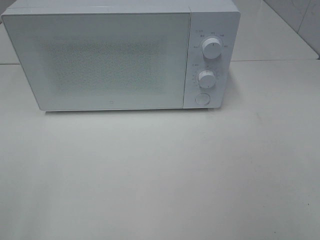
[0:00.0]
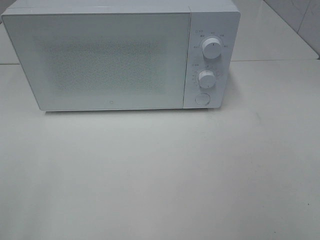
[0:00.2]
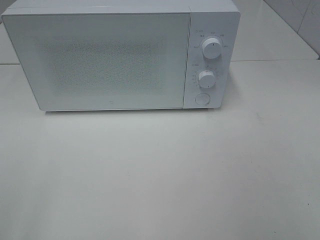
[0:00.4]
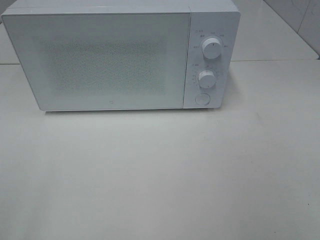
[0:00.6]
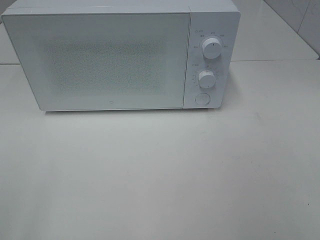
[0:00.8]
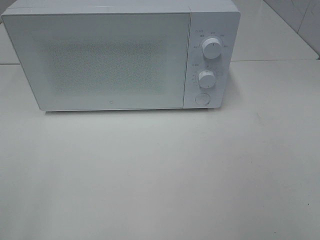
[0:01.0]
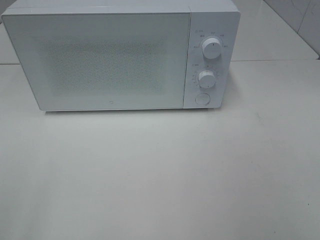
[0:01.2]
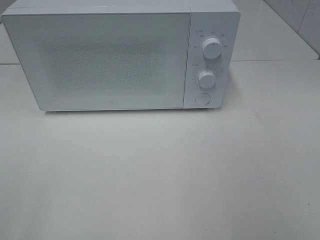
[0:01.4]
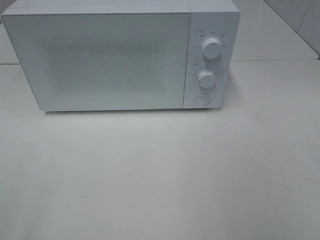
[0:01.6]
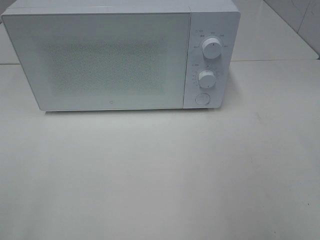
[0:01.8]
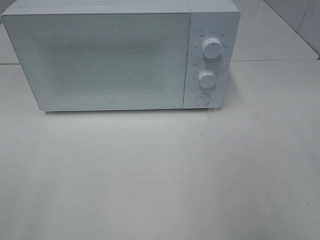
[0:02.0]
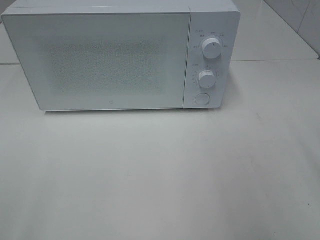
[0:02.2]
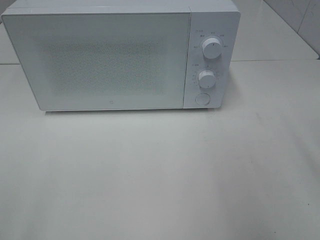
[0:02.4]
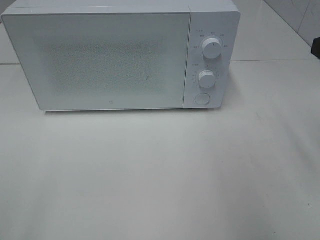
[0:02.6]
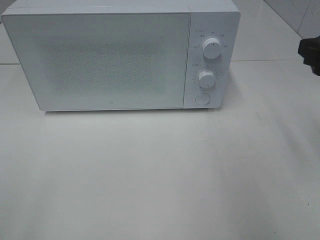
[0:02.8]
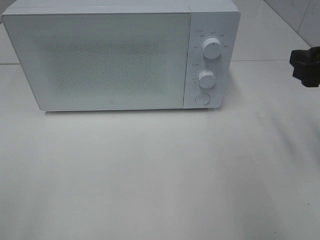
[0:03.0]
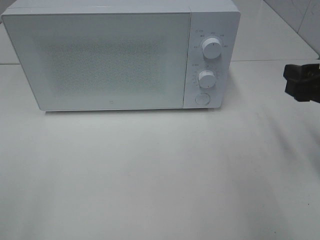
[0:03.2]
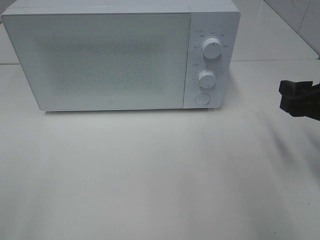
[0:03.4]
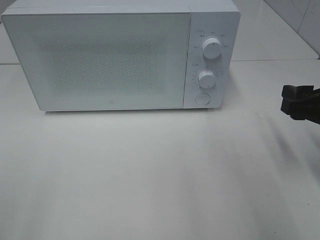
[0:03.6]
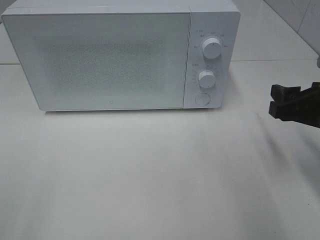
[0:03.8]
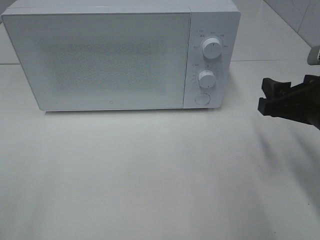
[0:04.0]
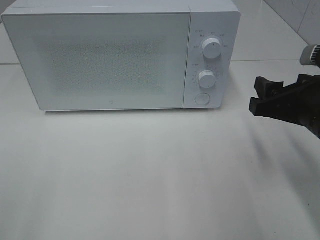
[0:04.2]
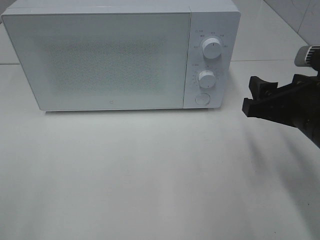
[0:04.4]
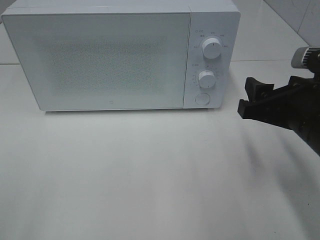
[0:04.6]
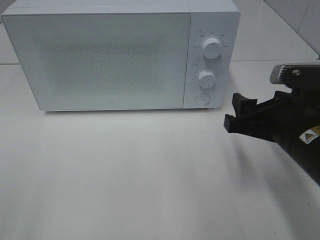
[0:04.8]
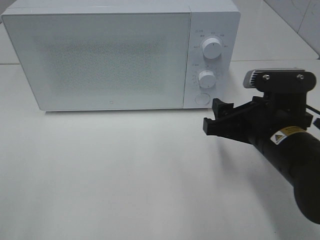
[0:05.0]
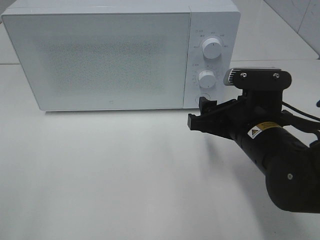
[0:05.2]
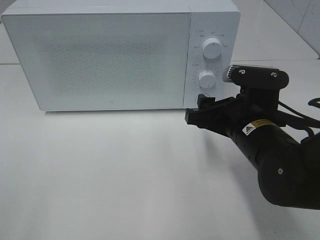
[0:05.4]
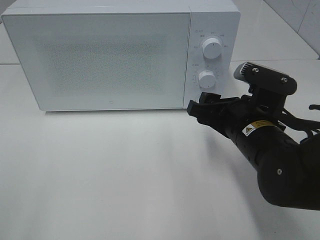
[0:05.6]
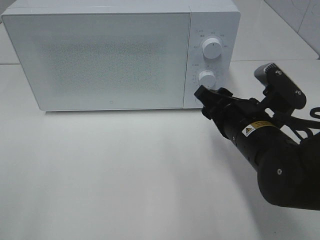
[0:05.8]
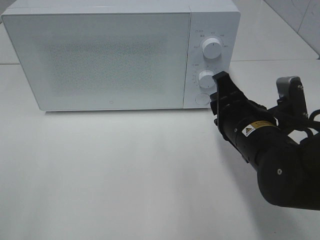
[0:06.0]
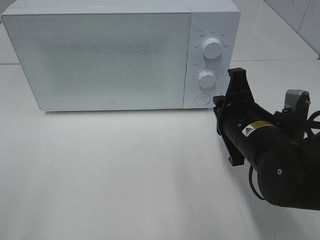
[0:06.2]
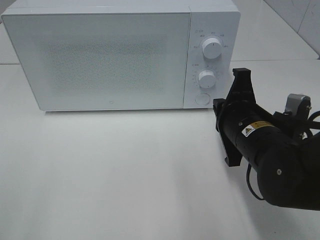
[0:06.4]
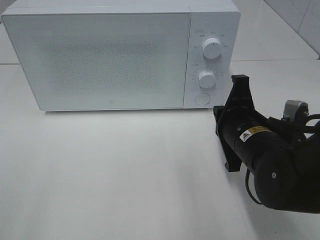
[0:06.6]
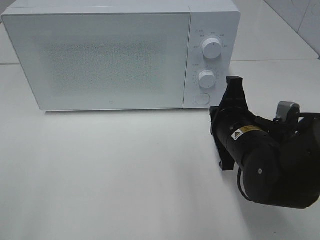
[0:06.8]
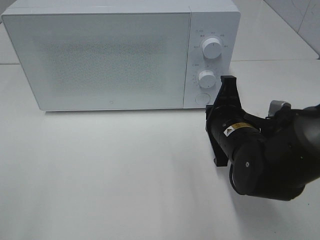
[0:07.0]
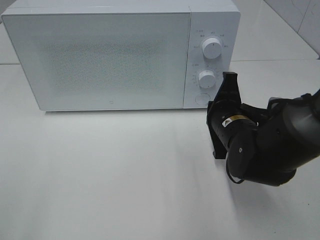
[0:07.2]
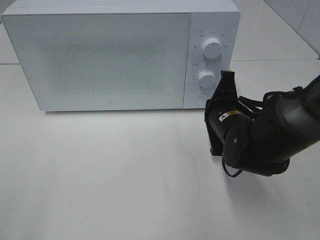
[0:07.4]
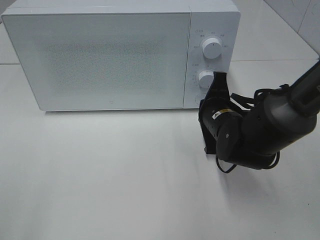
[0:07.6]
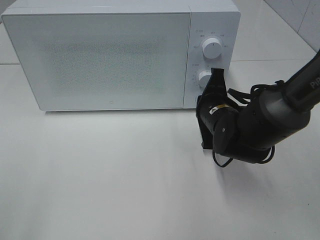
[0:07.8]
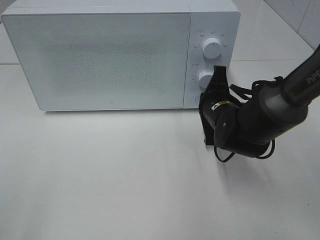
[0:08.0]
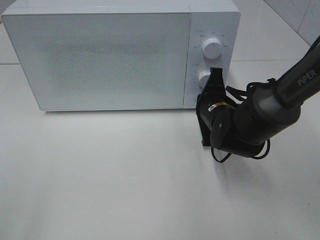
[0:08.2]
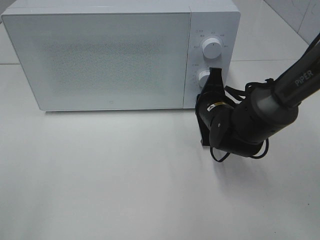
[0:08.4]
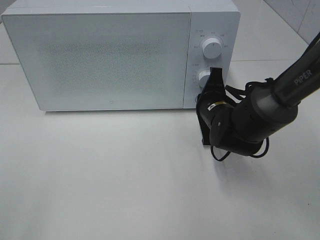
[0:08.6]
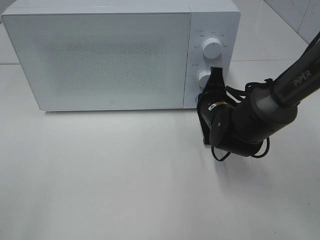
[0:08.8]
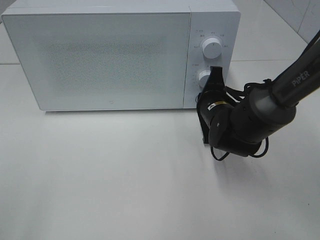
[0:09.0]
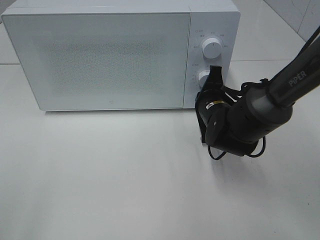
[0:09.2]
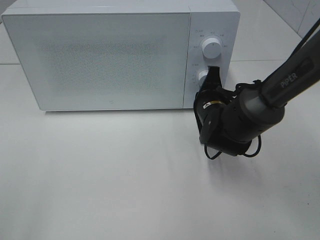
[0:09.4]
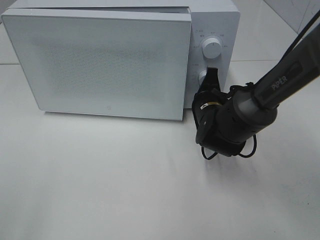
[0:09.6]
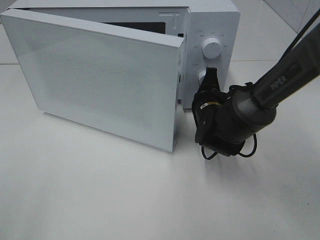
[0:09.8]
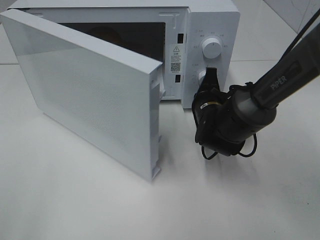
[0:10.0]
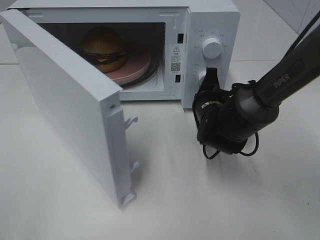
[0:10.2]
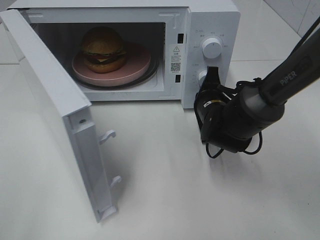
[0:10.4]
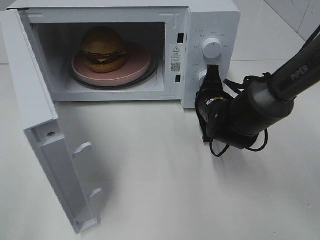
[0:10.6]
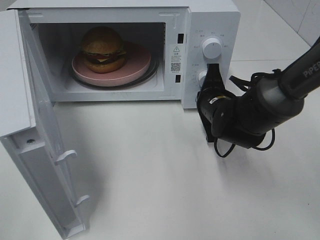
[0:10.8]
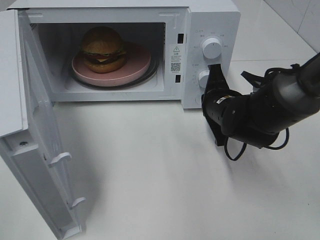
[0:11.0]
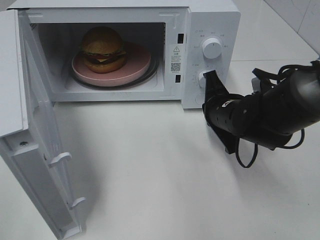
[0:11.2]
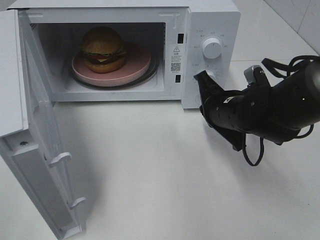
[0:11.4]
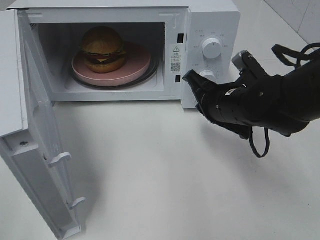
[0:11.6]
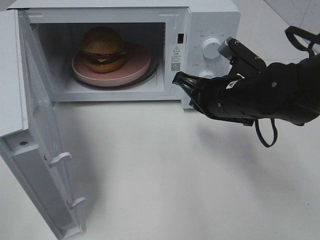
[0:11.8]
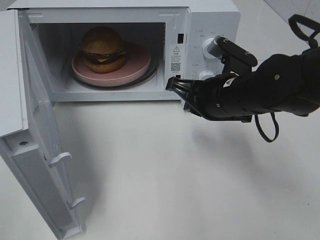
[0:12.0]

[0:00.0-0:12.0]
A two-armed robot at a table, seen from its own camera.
Task of the whole recording: Heat the burger.
Step, 0:00.0 to 0:11.0: Right hand: press the switch.
0:01.6 to 0:03.0: The right gripper moves forward and downward, roughly 20 cm.
0:03.0 to 0:04.4: The right gripper goes approximately 5 cm to the left.
0:04.4 to 0:06.0: The right gripper heads to the left and downward, covering approximately 10 cm, and closes its fingers.
0:06.0 to 0:07.6: The right gripper is displaced forward by roughly 5 cm, and closes.
0:07.6 to 0:09.0: The grippers move only a little.
0:10.4 to 0:12.0: The right gripper heads upward and backward, covering roughly 10 cm.

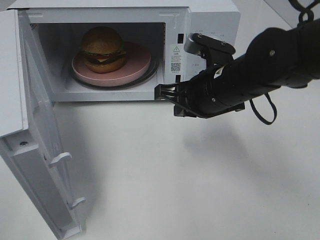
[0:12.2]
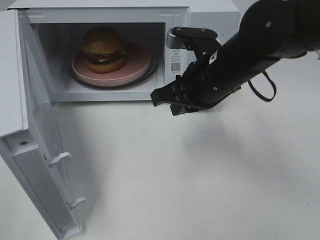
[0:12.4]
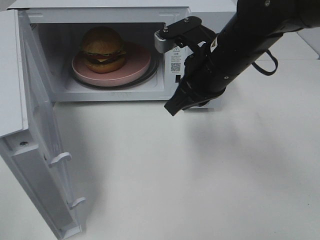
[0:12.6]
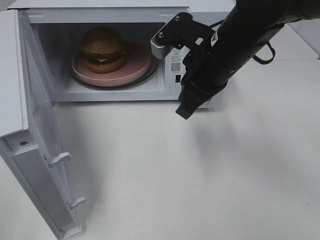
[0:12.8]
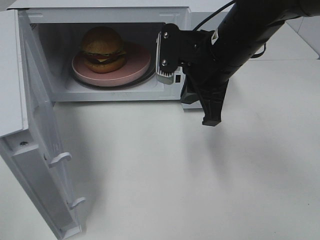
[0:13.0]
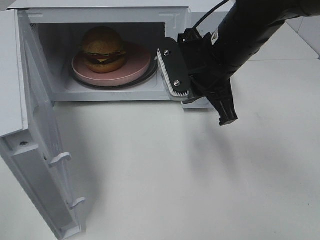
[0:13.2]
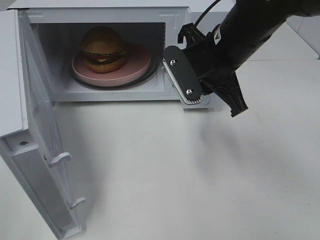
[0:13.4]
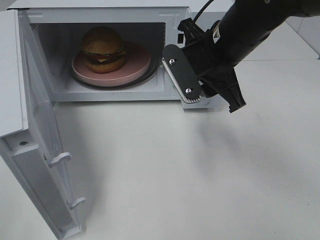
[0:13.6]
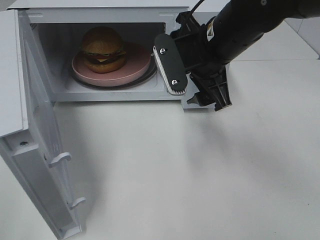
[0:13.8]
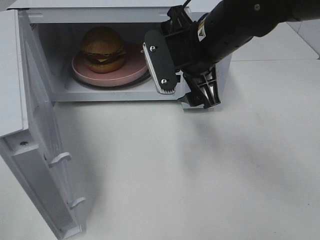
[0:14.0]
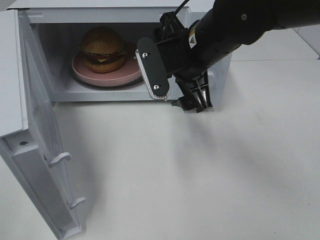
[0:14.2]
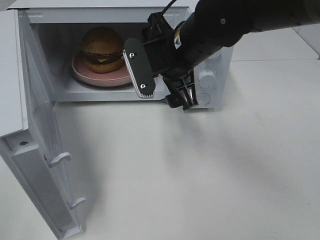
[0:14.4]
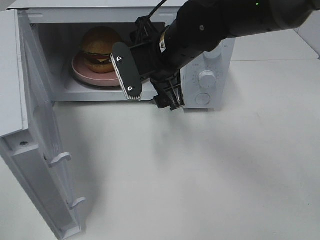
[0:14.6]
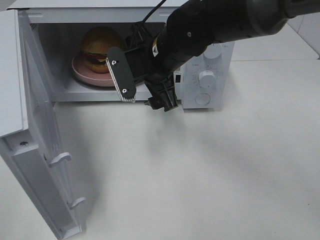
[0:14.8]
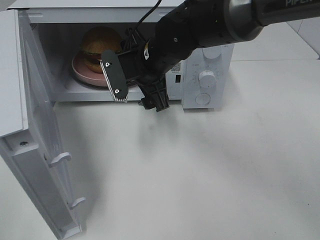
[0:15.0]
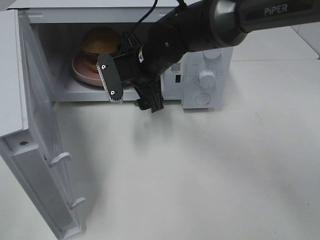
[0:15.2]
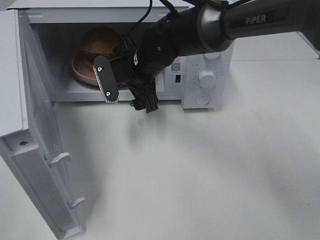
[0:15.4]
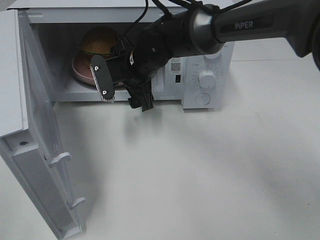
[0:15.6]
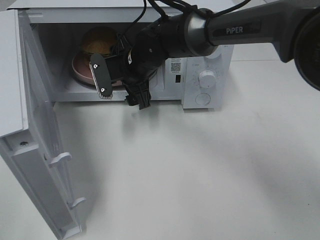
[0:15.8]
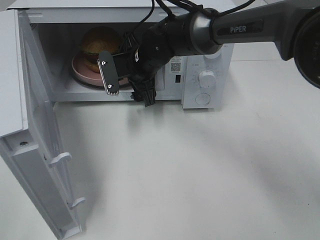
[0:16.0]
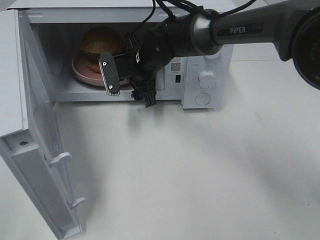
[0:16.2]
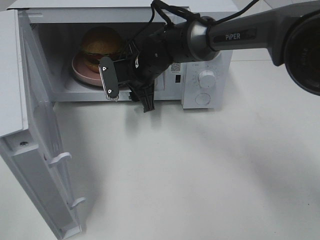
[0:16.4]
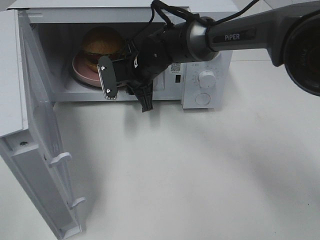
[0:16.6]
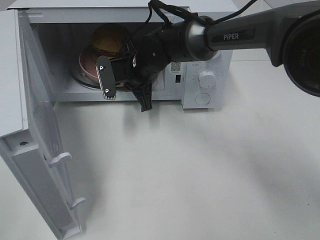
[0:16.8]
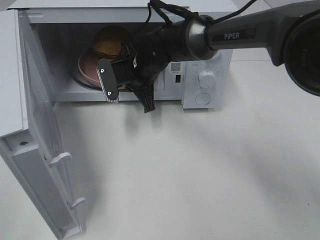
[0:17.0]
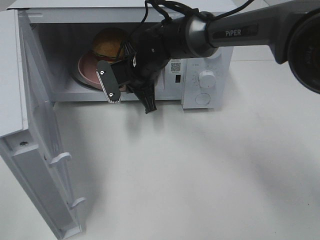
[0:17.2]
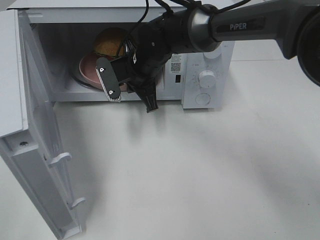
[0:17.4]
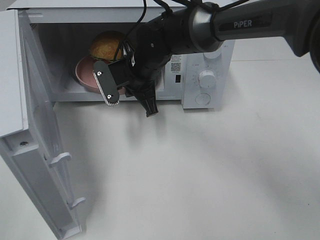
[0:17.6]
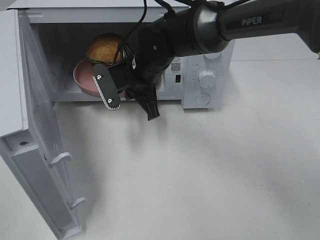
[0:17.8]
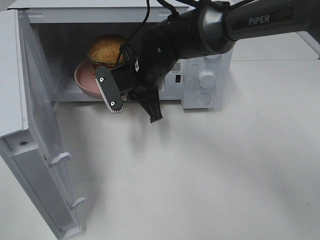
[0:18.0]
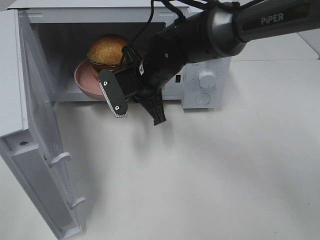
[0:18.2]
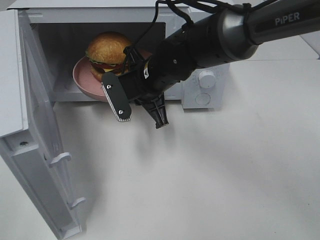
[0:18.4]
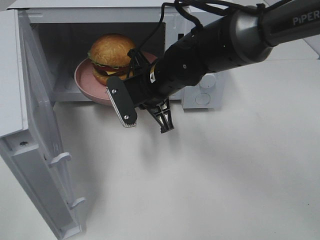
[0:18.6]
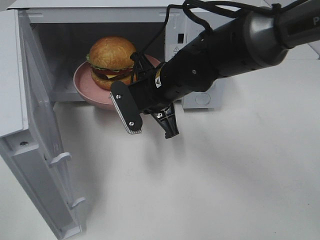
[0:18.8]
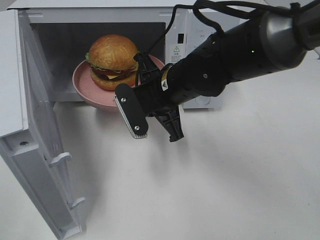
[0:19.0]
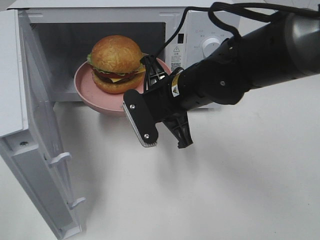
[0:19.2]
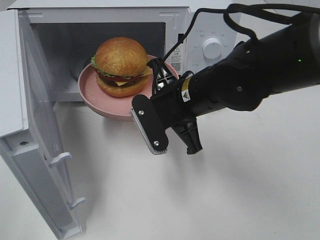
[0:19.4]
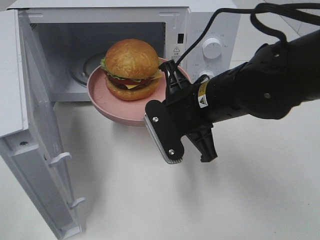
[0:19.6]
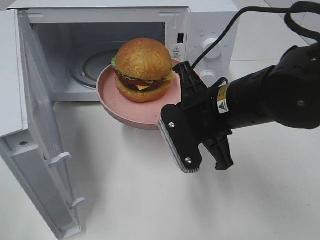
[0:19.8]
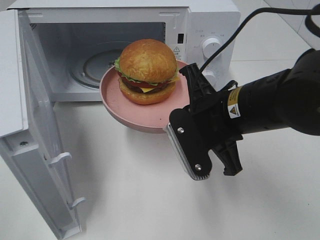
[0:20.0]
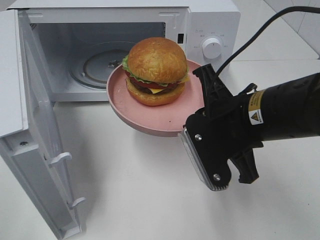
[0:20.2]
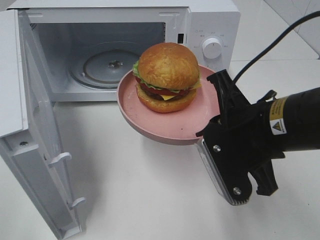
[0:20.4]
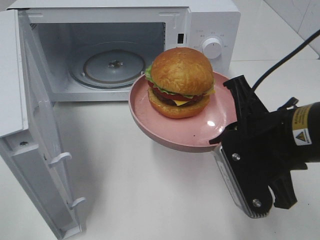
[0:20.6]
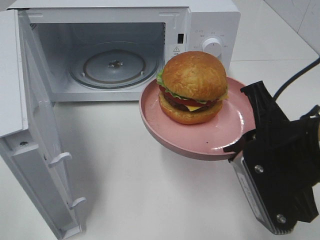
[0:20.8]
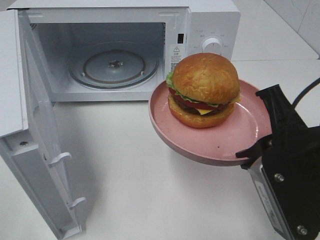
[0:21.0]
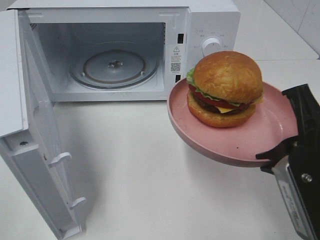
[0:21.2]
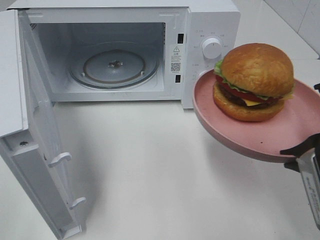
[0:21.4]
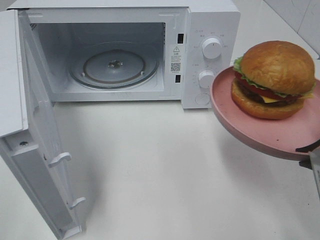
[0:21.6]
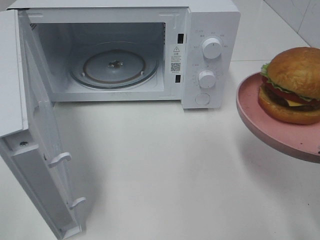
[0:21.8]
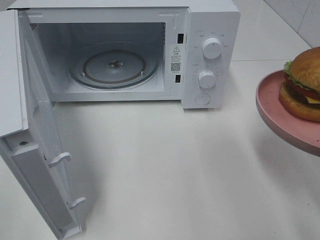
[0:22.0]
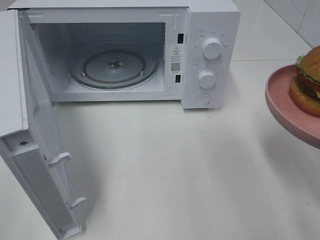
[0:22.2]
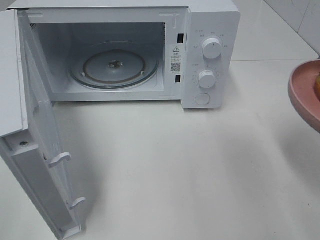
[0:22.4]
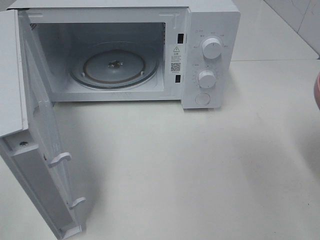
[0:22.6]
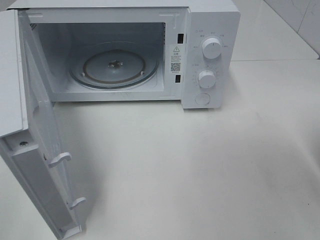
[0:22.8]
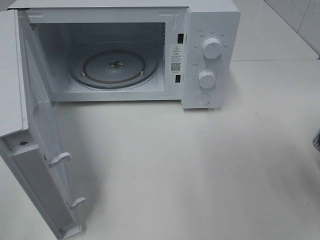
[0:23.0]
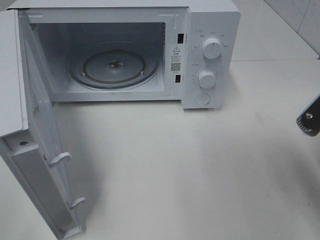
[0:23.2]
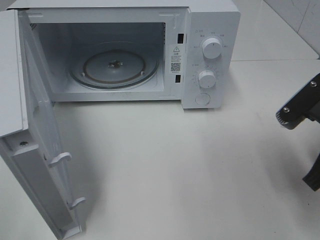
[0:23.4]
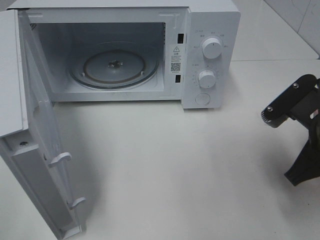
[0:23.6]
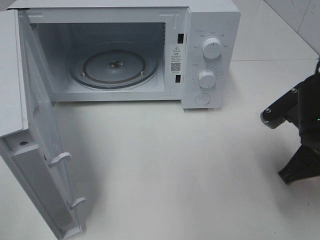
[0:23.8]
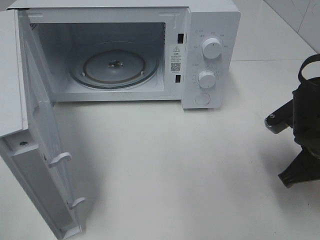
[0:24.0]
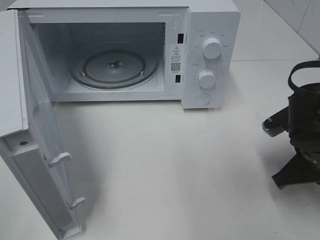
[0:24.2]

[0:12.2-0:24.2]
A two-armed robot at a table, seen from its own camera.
Task of the whole recording: Heat the burger.
Step, 0:12.2 to 0:17.0: Right hand: grab the plate with the hamburger.
0:12.2 to 0:13.8: The right gripper moves upward, approximately 5 cm, and opens its fingers.
0:13.8 to 0:15.2: The right gripper is displaced to the left, downward and forward by some 15 cm.
0:15.2 to 0:16.6: The right gripper moves roughly 5 cm, and closes its fingers.
0:16.6 to 0:18.2: The right gripper shifts roughly 5 cm backward.
0:18.2 to 0:19.8: The right gripper shifts roughly 15 cm backward and to the right.
0:19.8 to 0:21.2: The right gripper travels backward and to the right by some 15 cm.
0:21.2 to 0:22.6: The right gripper moves to the right, roughly 5 cm.
0:22.6 to 0:24.2: The right gripper heads downward and forward, covering about 15 cm.
